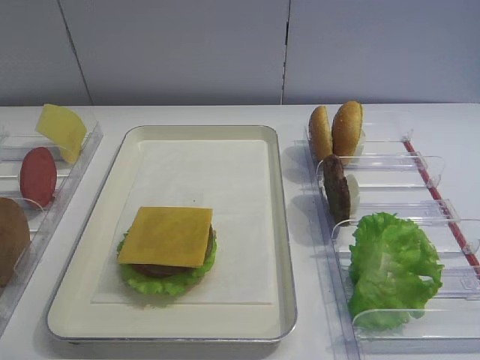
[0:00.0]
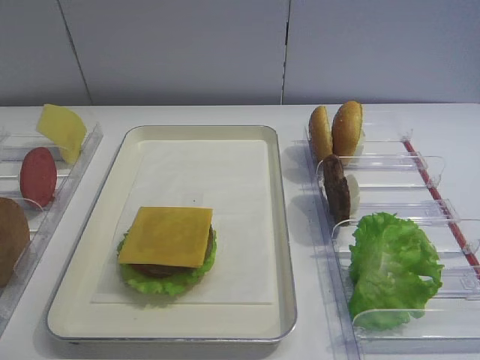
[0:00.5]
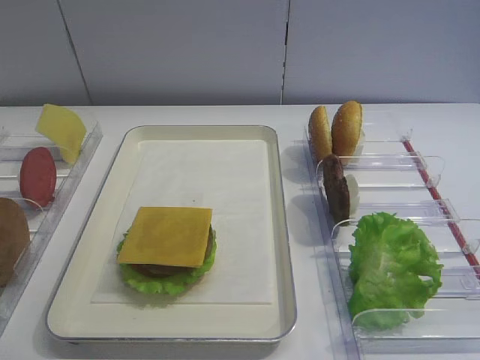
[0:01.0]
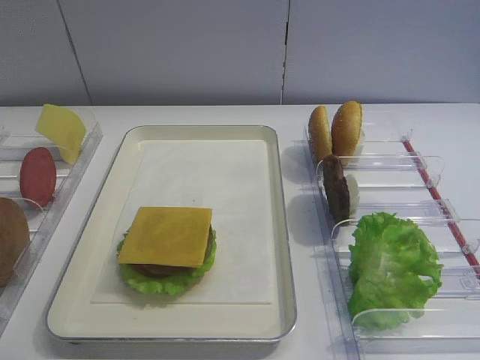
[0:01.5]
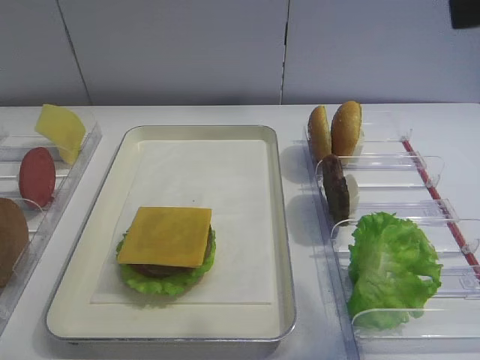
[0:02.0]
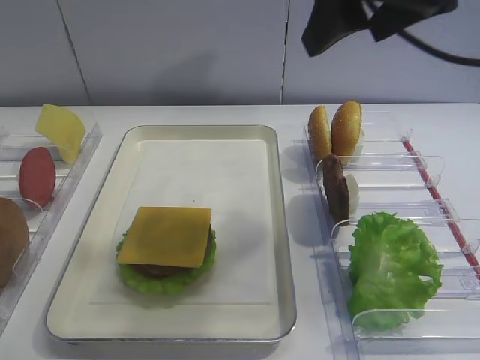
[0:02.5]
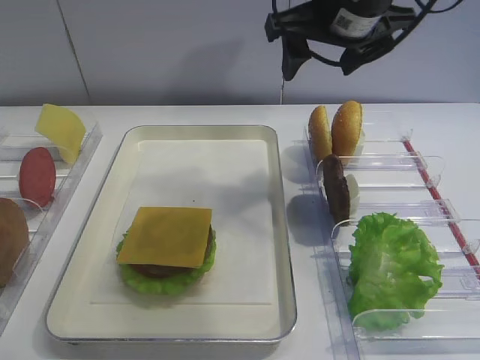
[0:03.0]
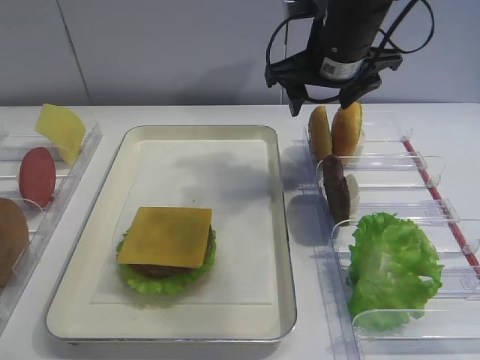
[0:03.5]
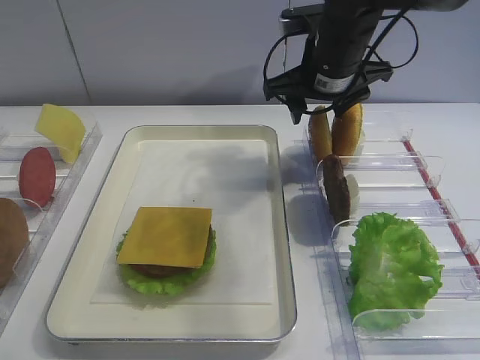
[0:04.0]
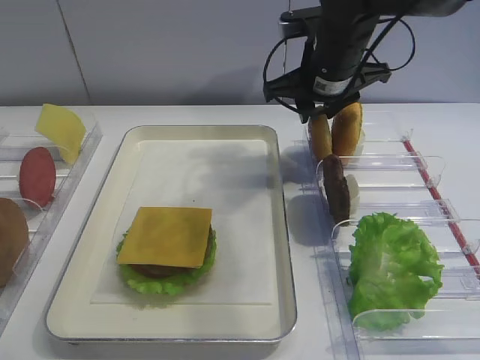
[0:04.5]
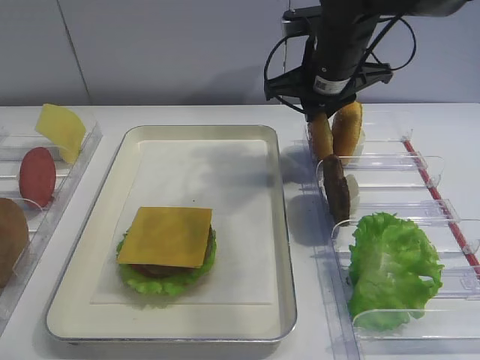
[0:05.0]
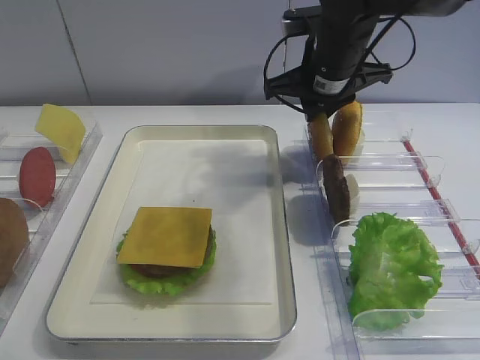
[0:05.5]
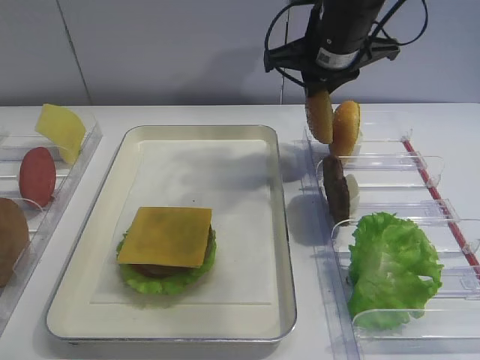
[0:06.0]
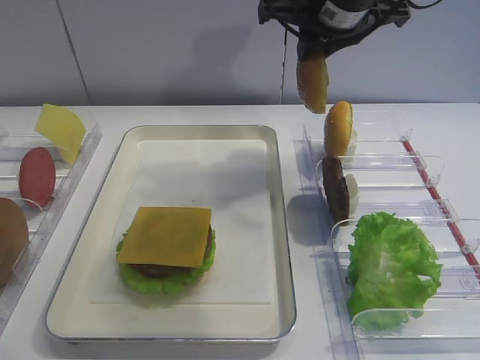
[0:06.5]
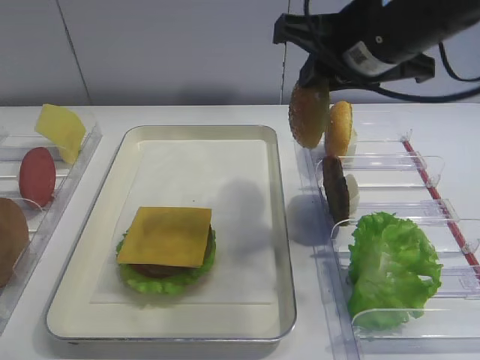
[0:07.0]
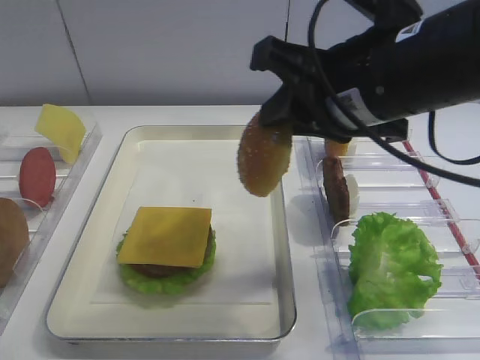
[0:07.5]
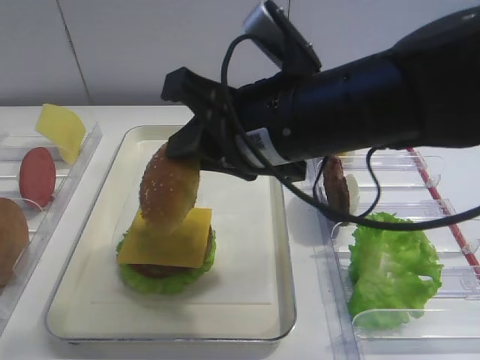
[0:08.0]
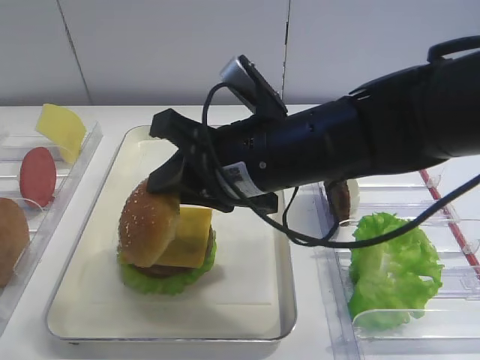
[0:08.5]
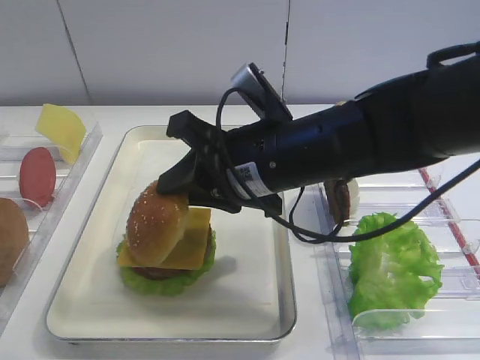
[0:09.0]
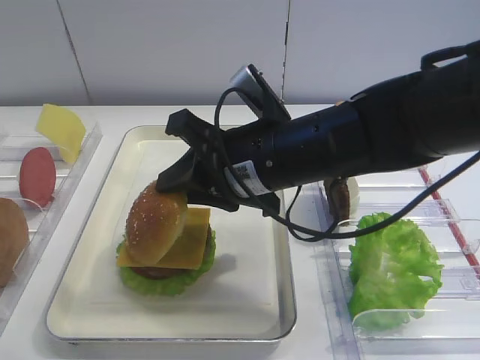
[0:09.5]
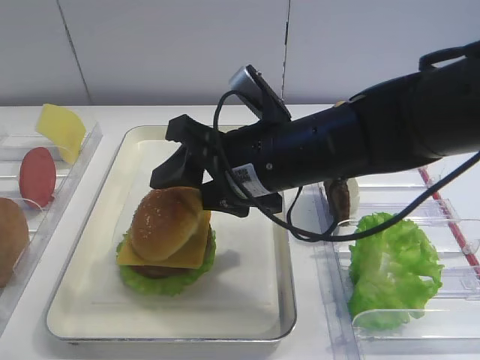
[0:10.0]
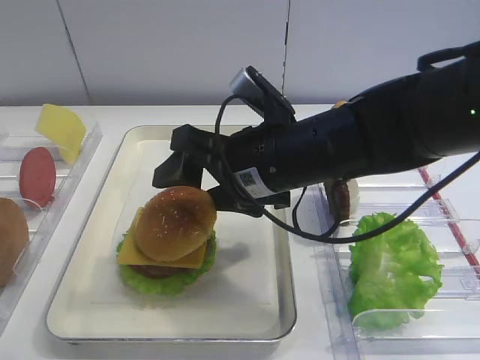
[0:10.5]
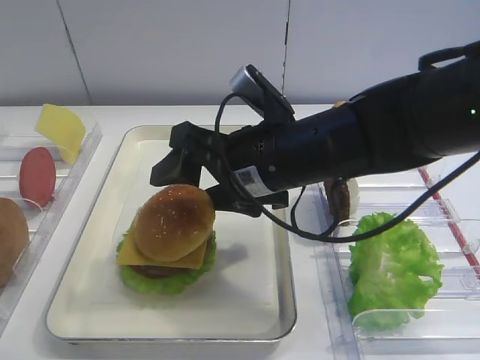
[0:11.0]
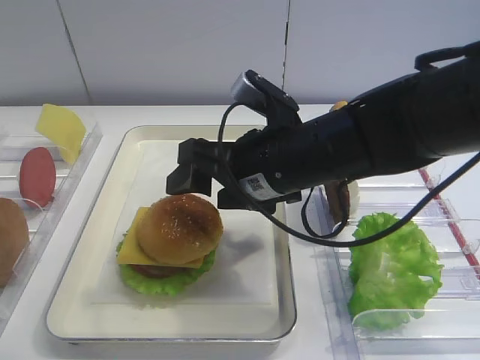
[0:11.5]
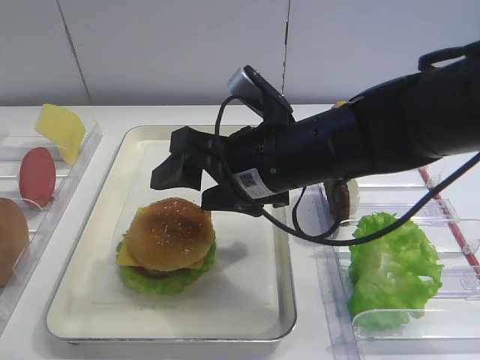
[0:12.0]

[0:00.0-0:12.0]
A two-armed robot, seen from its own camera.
Step, 0:00.0 to 0:06.0: Pick up the hamburger lid with the right gripper.
0:02.0 to 0:04.0: The right gripper is displaced forward, downward and to the left by roughly 30 cm, and closes its fingers.
0:04.0 to 0:06.0: The right gripper closes.
0:06.0 to 0:08.0: The right gripper heads backward, covering approximately 20 cm.
0:08.0 to 0:10.0: The right gripper is displaced downward by roughly 5 cm.
0:10.0 to 0:12.0: The right gripper opens.

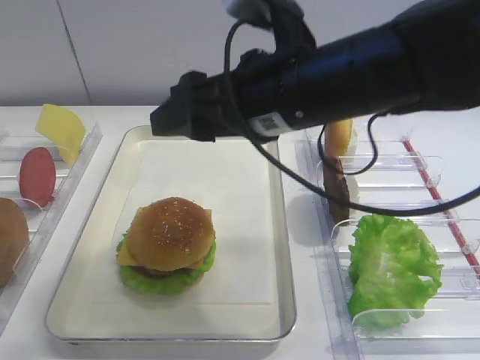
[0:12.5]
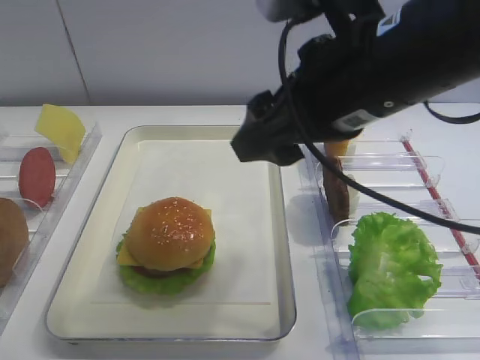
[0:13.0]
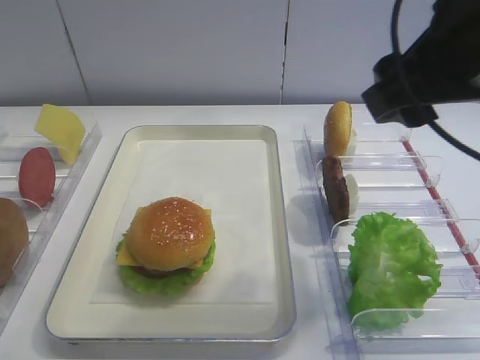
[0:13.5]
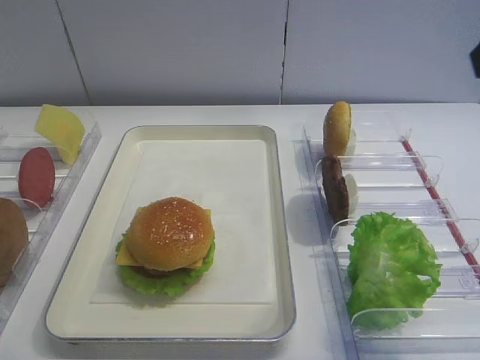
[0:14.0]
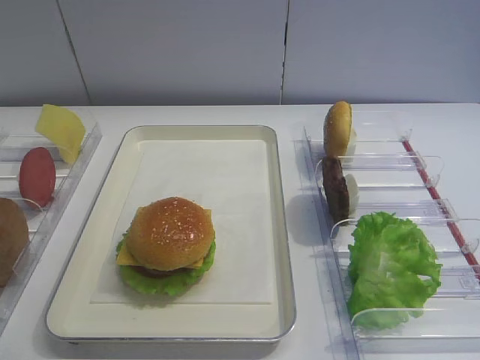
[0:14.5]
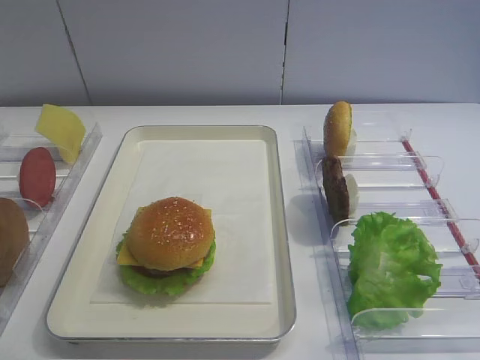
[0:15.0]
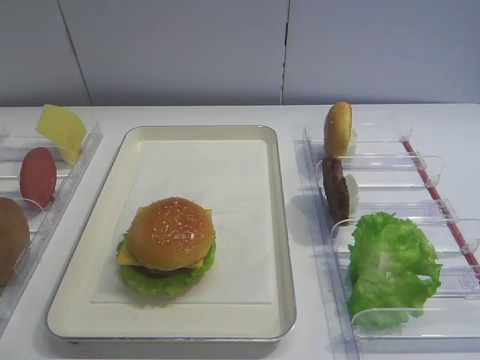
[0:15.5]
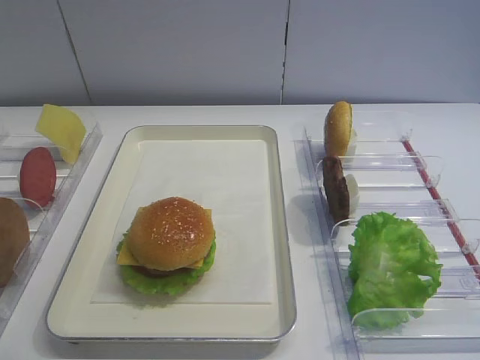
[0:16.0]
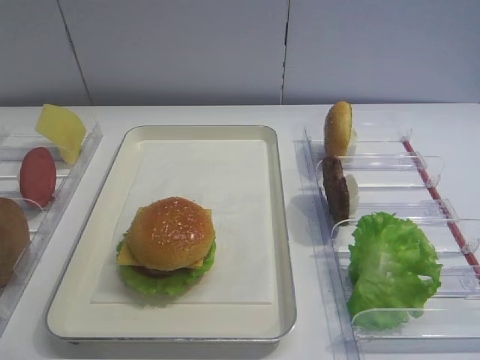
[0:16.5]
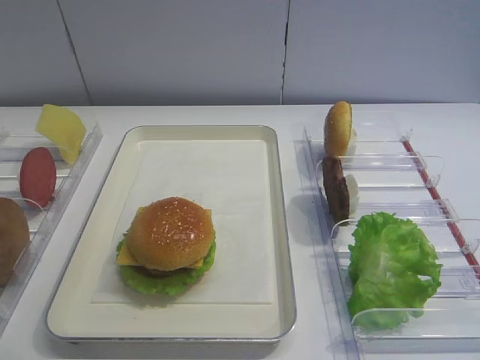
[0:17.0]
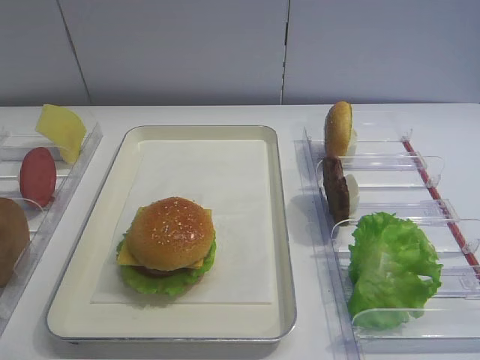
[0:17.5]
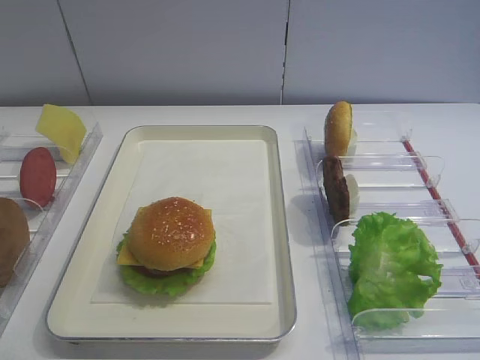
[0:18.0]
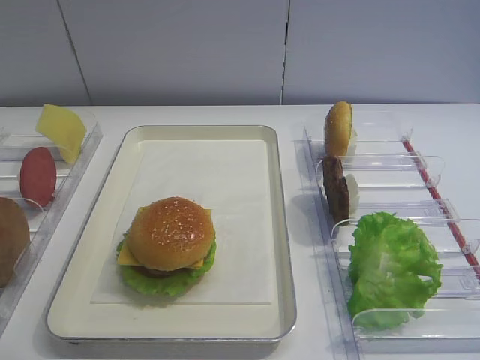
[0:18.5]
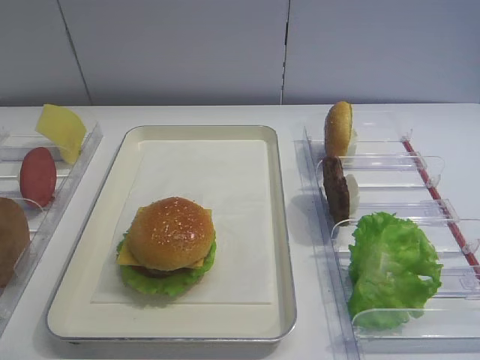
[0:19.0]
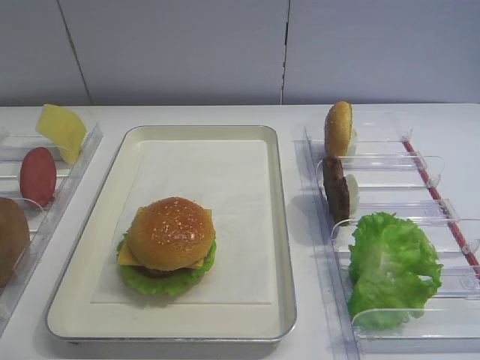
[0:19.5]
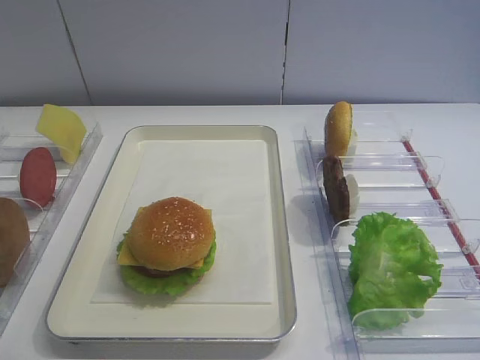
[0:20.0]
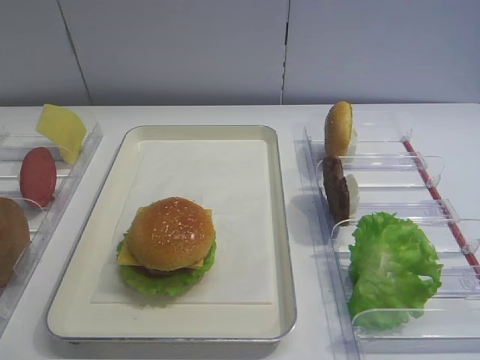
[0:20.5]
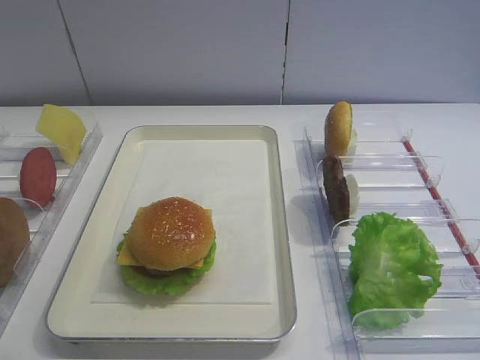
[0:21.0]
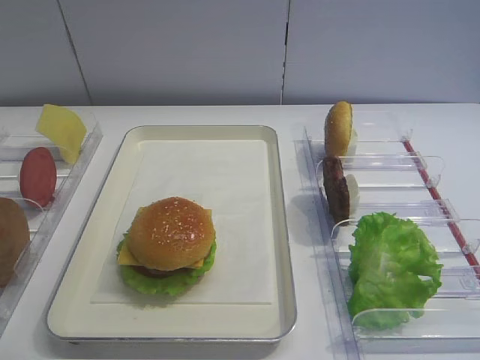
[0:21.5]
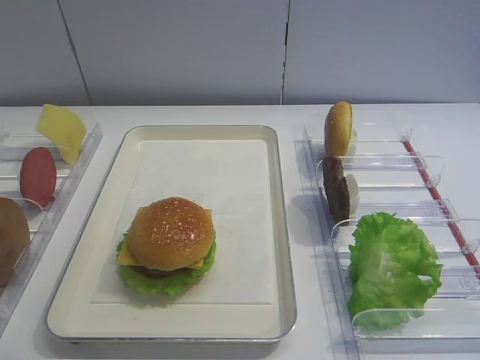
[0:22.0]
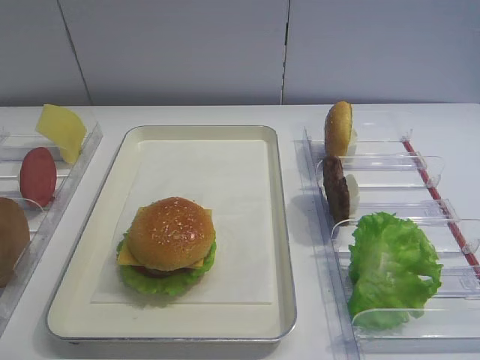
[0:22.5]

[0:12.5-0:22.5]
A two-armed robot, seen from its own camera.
0:12.5 to 0:14.5: The right gripper goes roughly 25 cm to the right and backward.
0:16.5 to 0:22.5: Both grippers stay about where they are.
